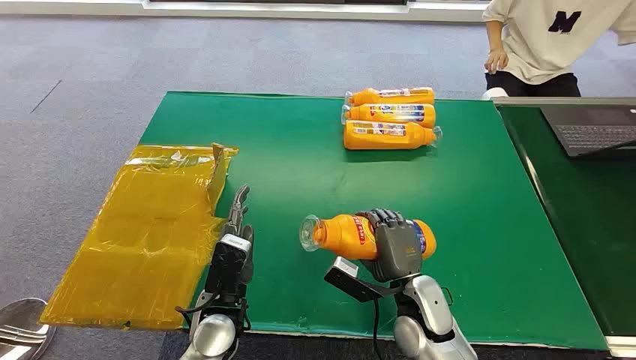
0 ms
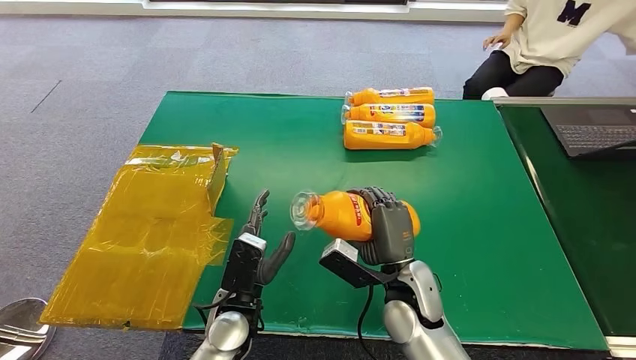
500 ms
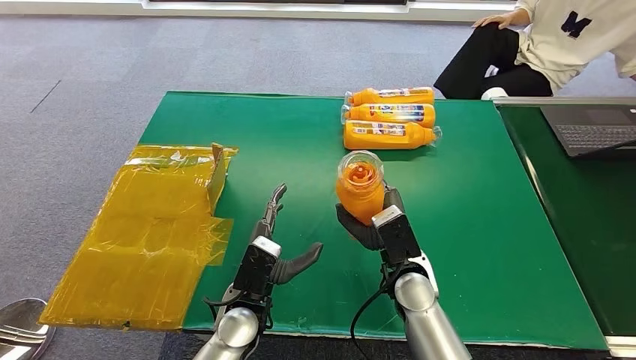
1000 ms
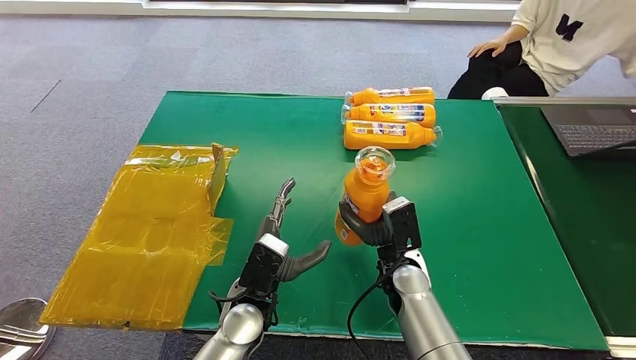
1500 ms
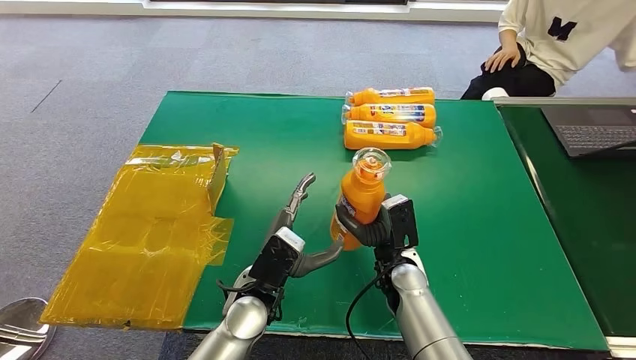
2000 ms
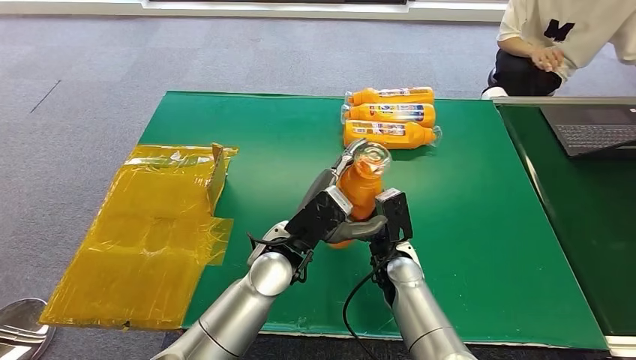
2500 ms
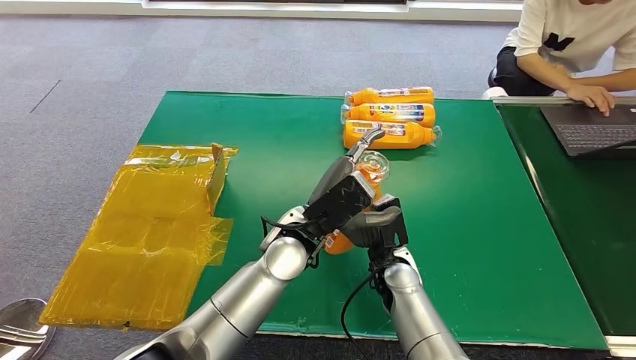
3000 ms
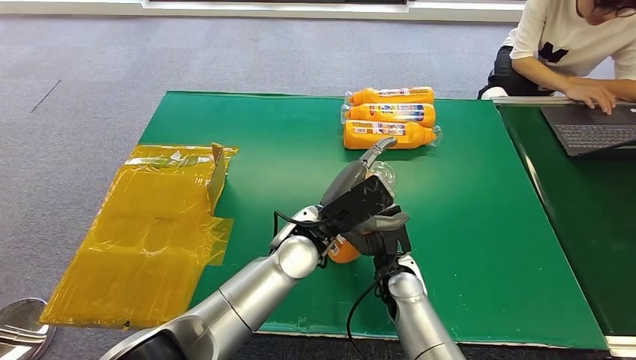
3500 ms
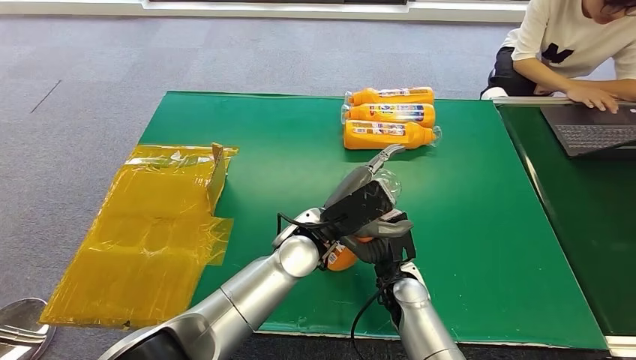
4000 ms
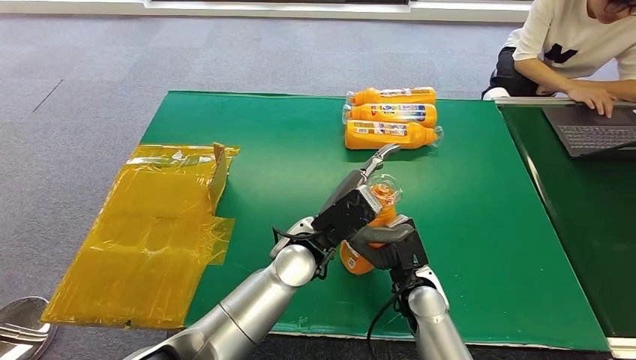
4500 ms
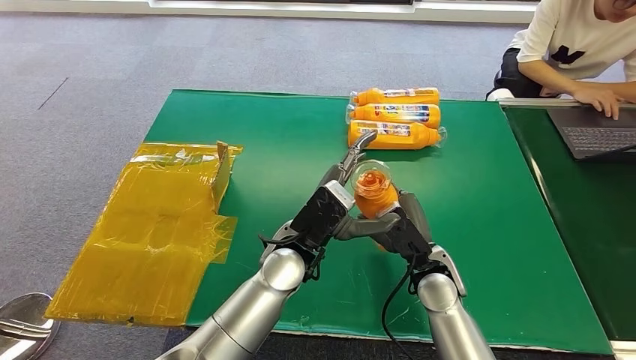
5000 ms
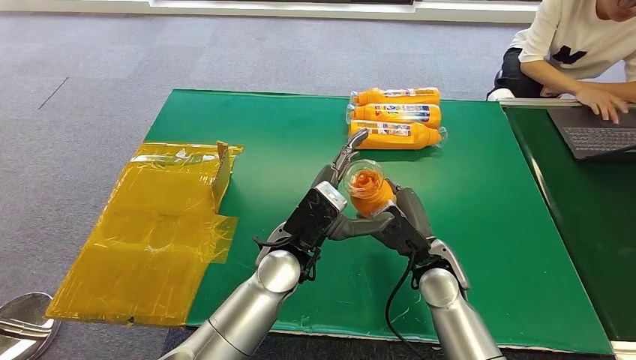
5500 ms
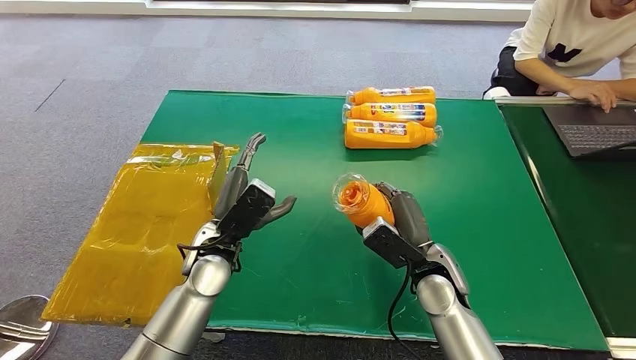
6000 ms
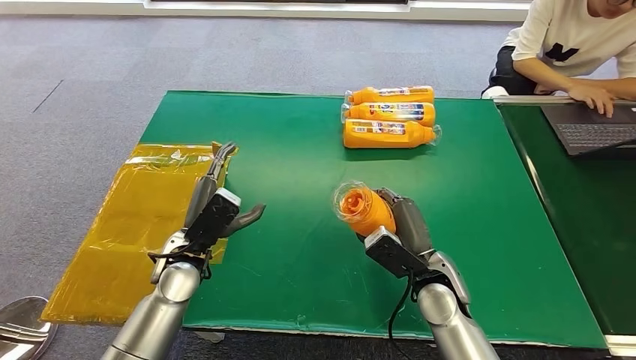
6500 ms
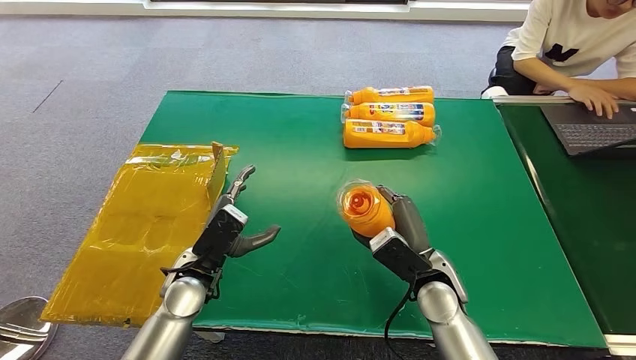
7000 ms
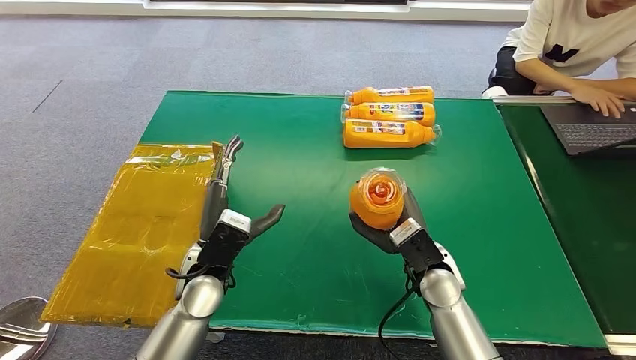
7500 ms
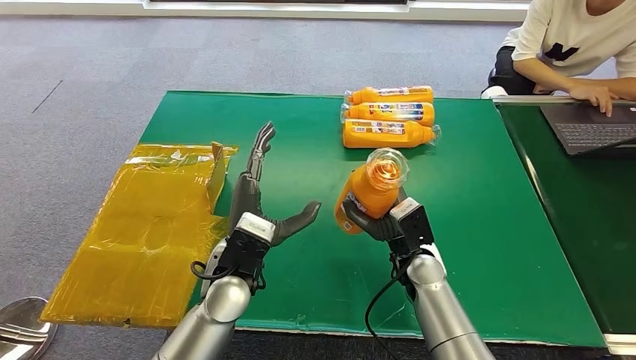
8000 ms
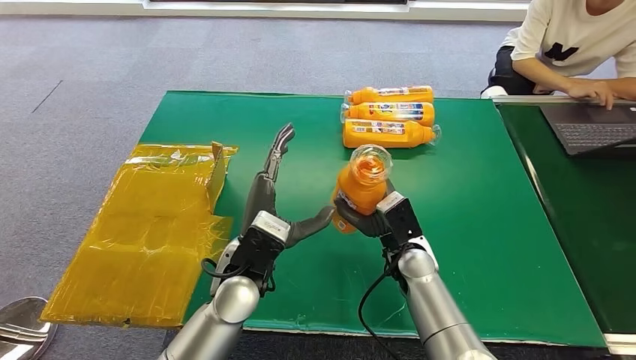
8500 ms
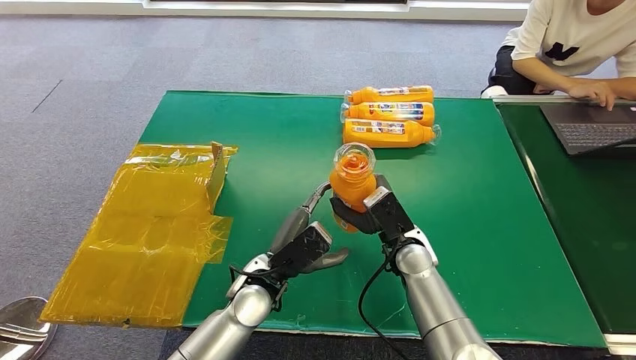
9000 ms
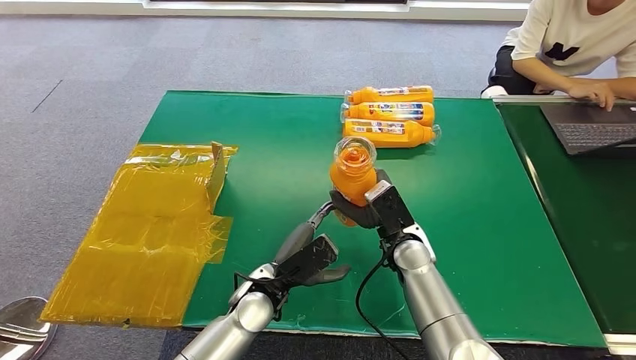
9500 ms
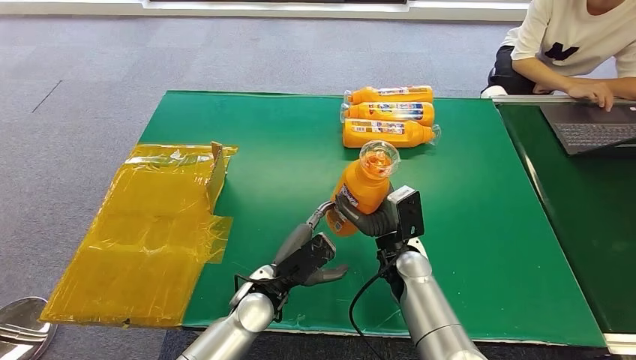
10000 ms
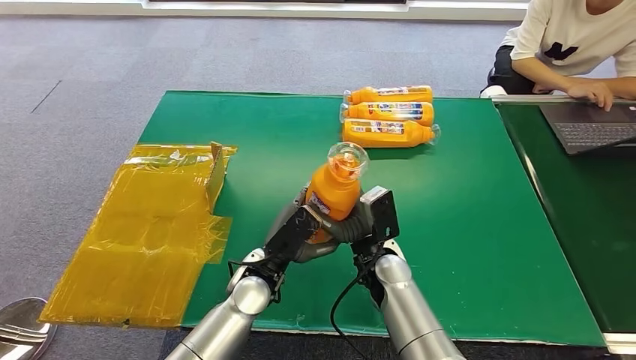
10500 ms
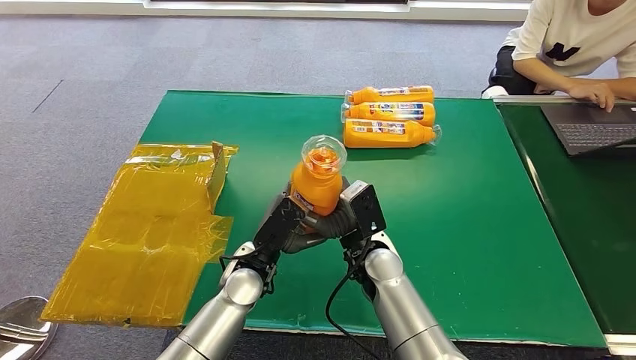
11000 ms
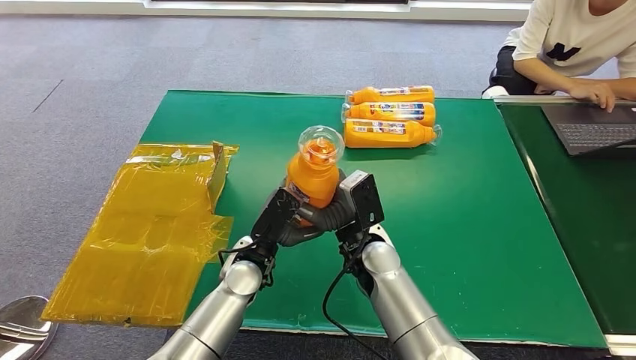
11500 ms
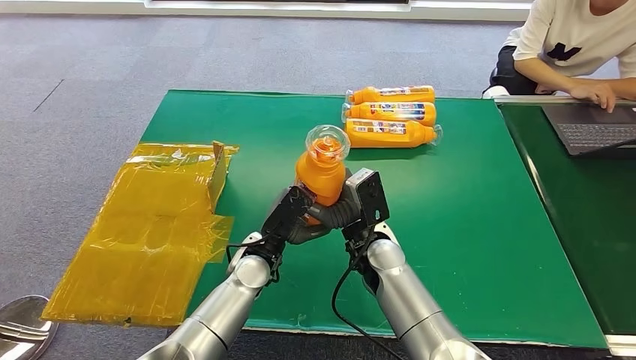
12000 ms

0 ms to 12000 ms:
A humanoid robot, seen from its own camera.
2000 ms to 4000 ms: The left hand moves forward, upward and to the right, approximately 15 cm.
4000 ms to 6000 ms: The left hand moves to the left, roughly 15 cm. The right hand moves upward and to the right, some 10 cm.
6000 ms to 8000 ms: The left hand changes place by about 5 cm.
8000 ms to 10000 ms: The left hand shifts approximately 10 cm downward.
10000 ms to 12000 ms: The right hand travels to the left and upward by approximately 10 cm.

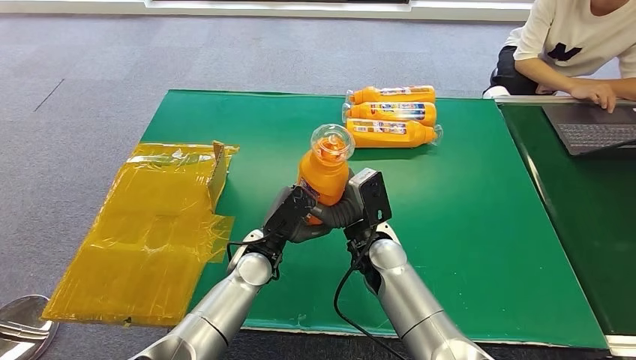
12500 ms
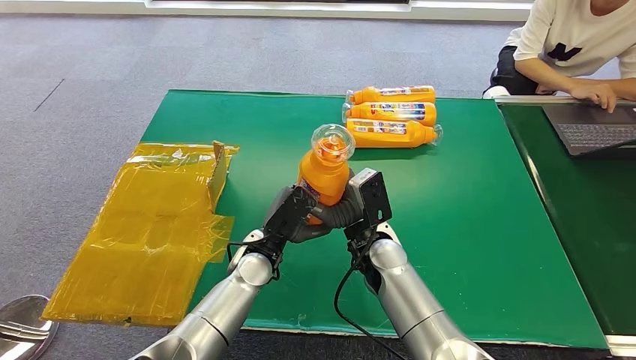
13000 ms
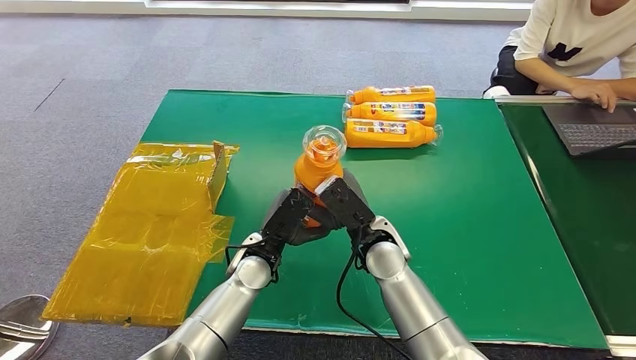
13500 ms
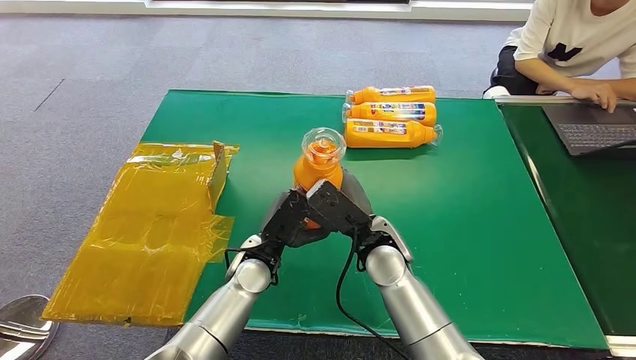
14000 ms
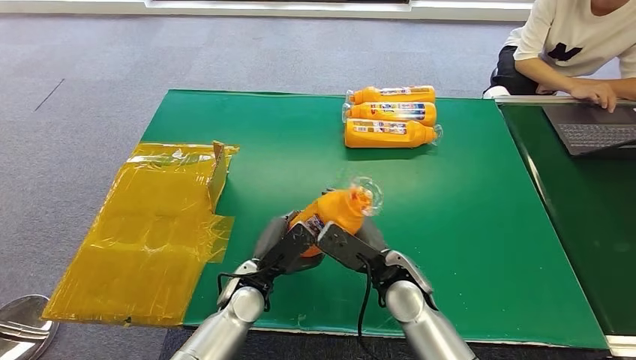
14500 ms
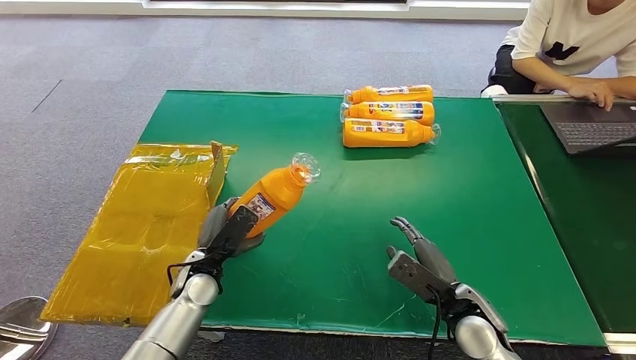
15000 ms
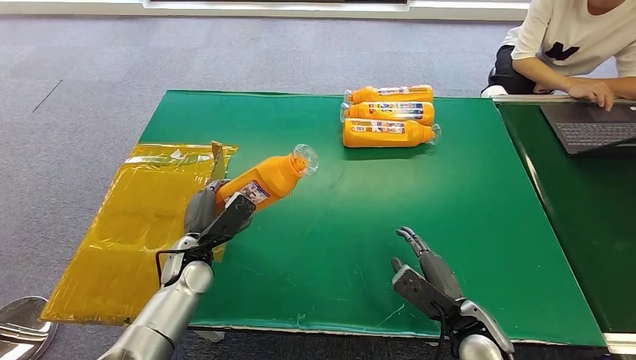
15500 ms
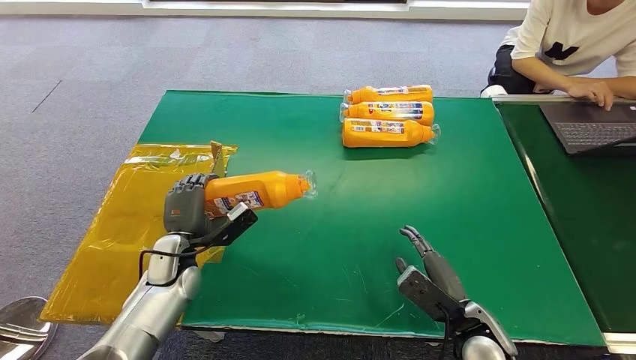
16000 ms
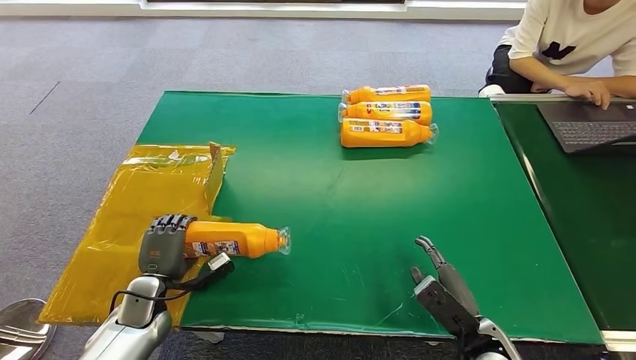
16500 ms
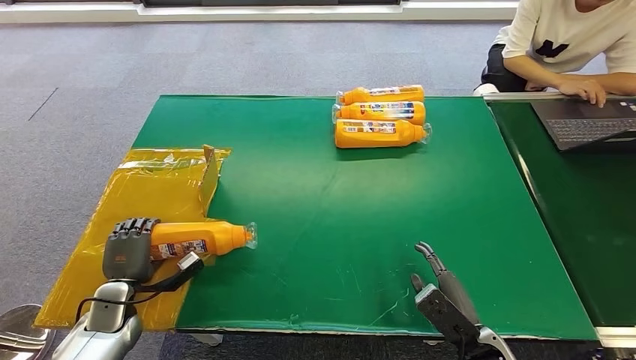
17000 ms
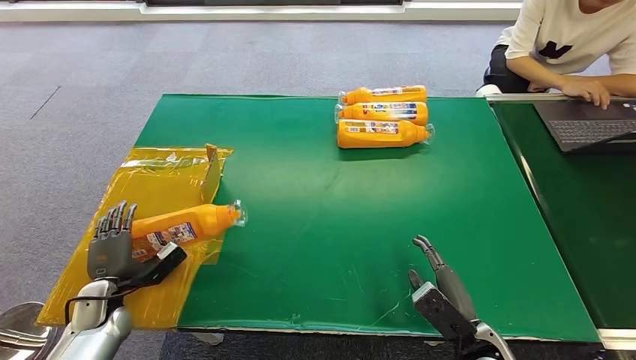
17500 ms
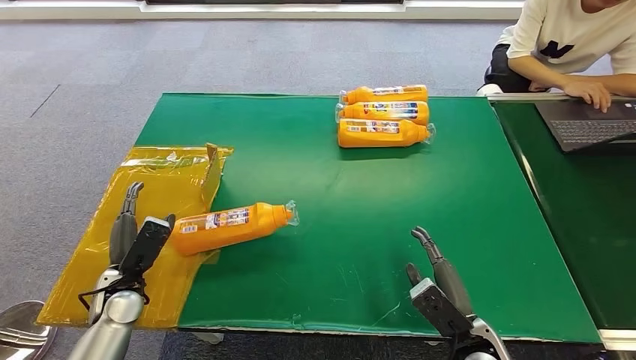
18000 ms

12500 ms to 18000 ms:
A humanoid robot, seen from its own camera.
Step, 12500 ms to 18000 ms: Turn the bottle to the front side.
12500 ms to 14500 ms: The right hand heads to the right, covering about 5 cm, while the left hand changes place by about 5 cm.
14500 ms to 16000 ms: The right hand is displaced to the right and backward by roughly 15 cm. Meanwhile the left hand shifts about 15 cm to the left.
16000 ms to 18000 ms: The left hand goes about 10 cm to the left and backward.
